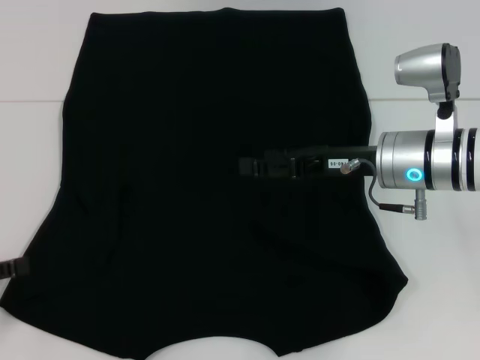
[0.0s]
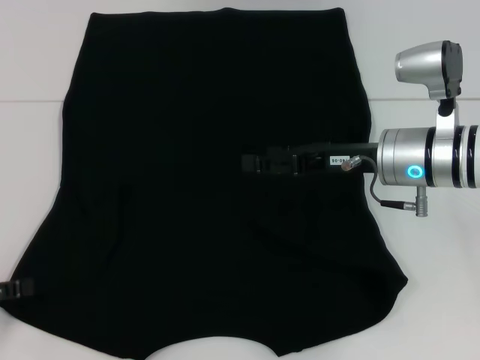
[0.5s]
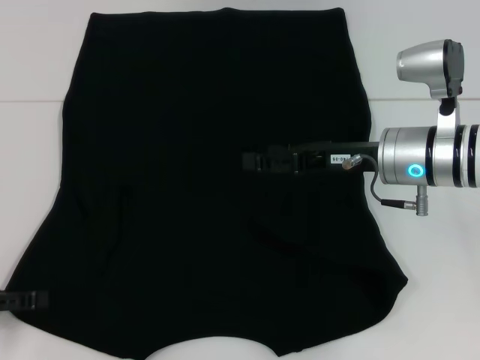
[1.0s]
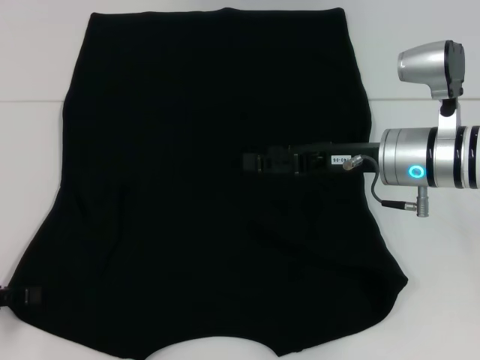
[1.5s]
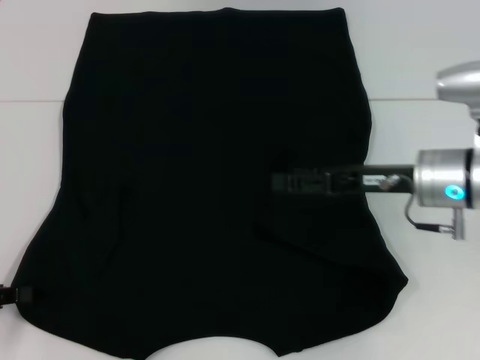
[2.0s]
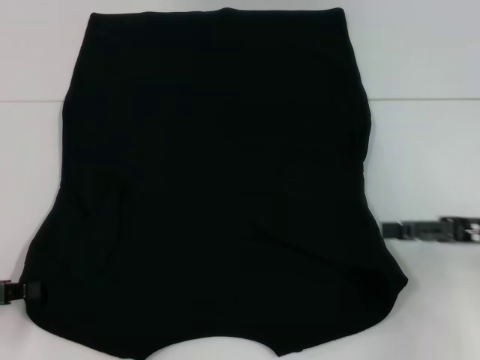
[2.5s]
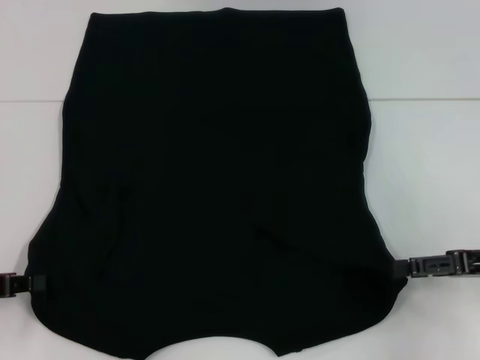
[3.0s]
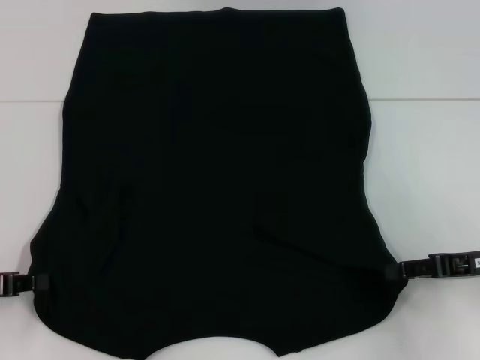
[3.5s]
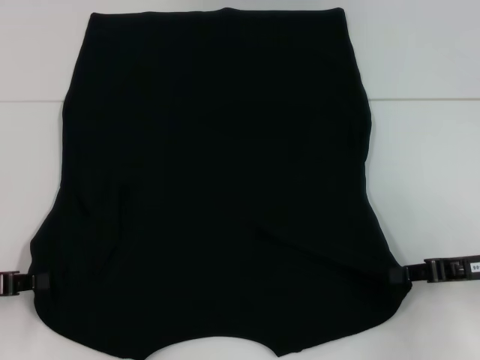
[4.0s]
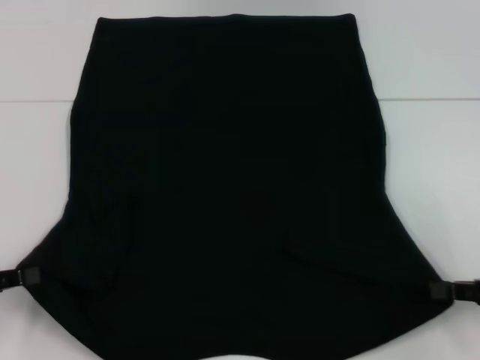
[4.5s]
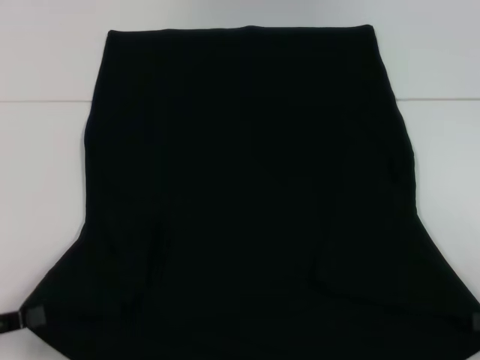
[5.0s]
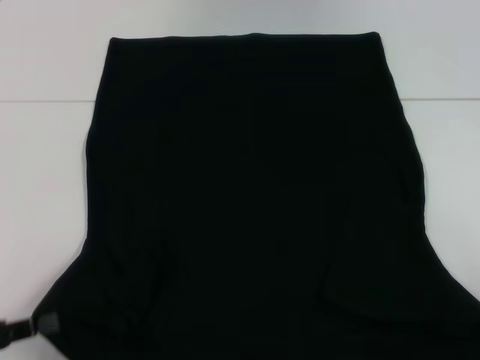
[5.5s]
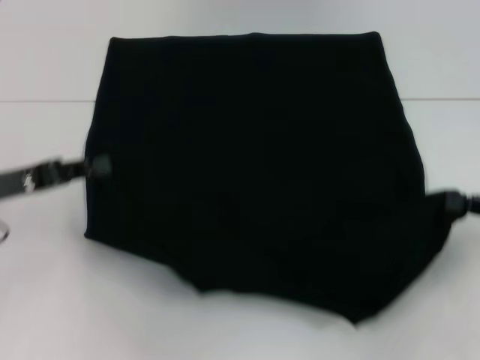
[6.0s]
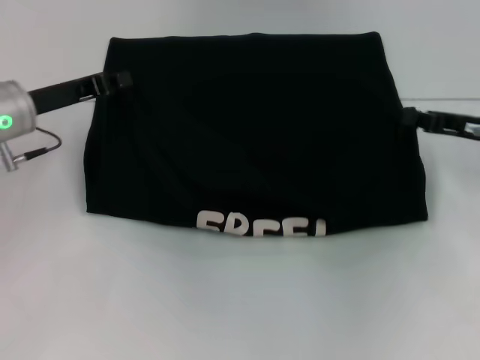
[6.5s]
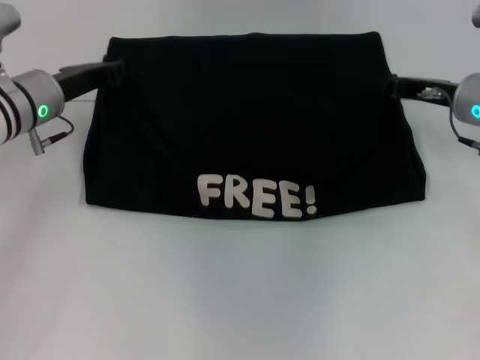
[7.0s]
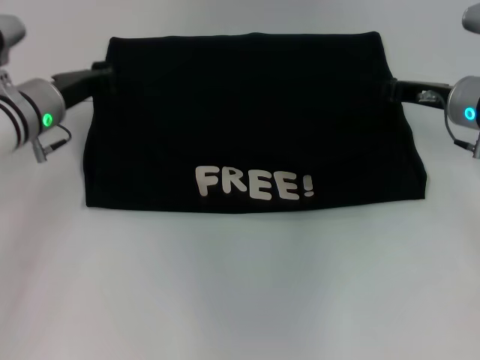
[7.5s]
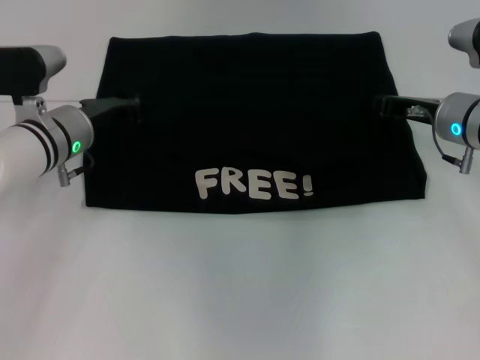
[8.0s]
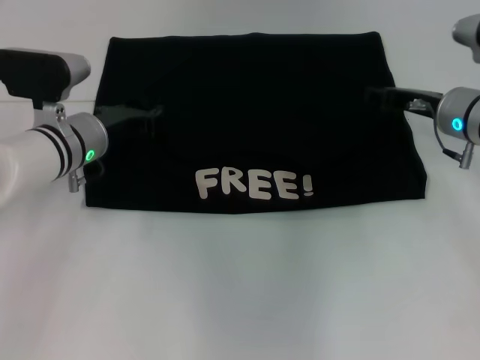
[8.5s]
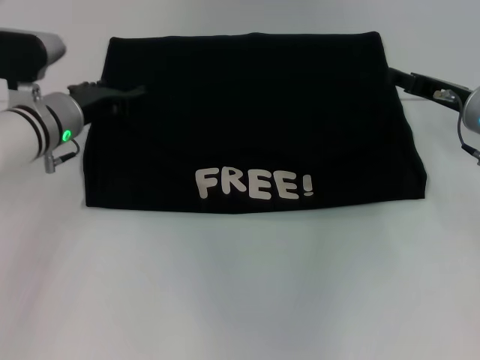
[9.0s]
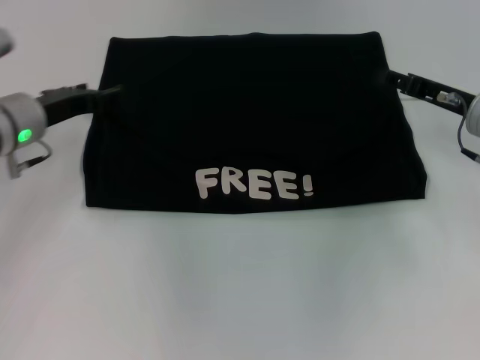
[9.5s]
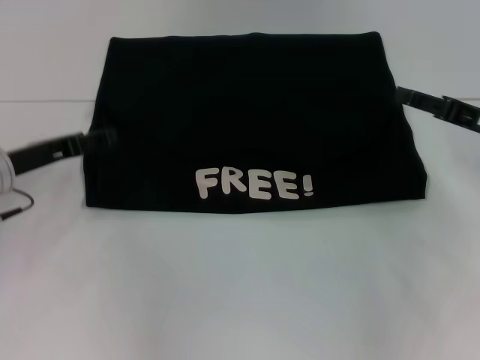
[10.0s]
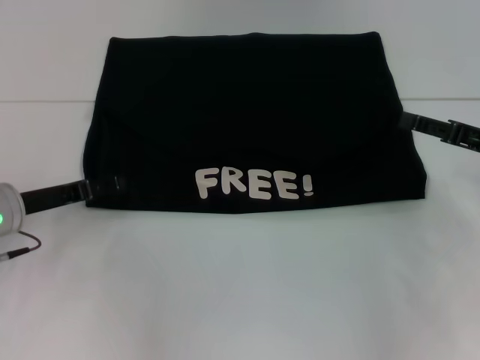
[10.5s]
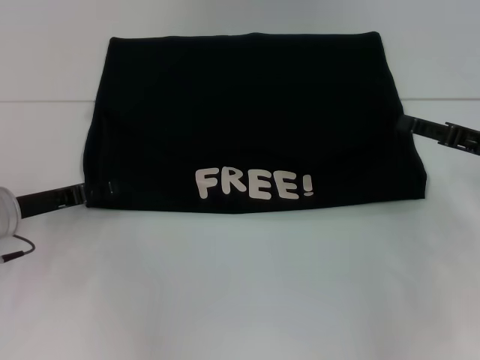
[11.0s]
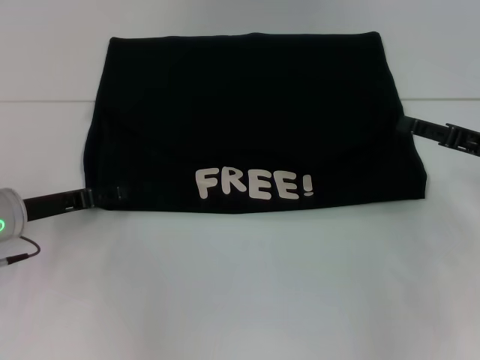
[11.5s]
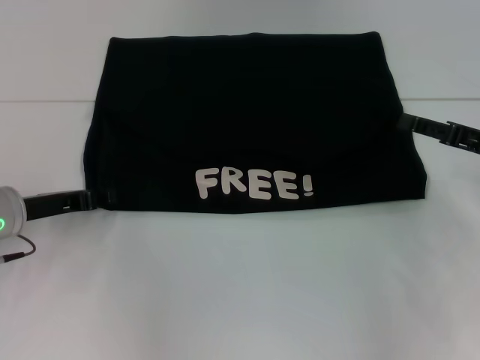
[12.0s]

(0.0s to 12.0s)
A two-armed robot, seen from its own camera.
Step, 0.0s - 2.0s: Grab the bottom left corner with your left hand.
Step, 2.5s - 4.0s: Grab the bottom right corner with your right hand.
Step, 4.5s - 8.5s: Fold the clothes with your left hand.
Step, 4.5s - 8.5s: Fold the clothes with your right hand.
2.0s - 4.0s: The right gripper travels to the right and backward by approximately 10 cm, and closes.
4.0s - 6.0s: The left gripper moves forward, roughly 5 cm; the right gripper moves to the right, roughly 5 cm, and moves roughly 10 cm backward and comes back.
6.0s - 8.0s: The left gripper goes roughly 15 cm forward and to the right. The right gripper heads forward and to the left, covering approximately 20 cm.
8.0s - 10.0s: The left gripper is displaced to the left and backward by roughly 10 cm, and opens its fingers. Meanwhile the right gripper heads to the right and backward, covering roughly 10 cm, and opens up.
10.0s - 12.0s: The grippers move only a little.

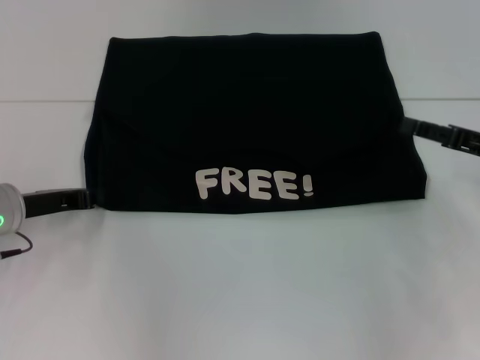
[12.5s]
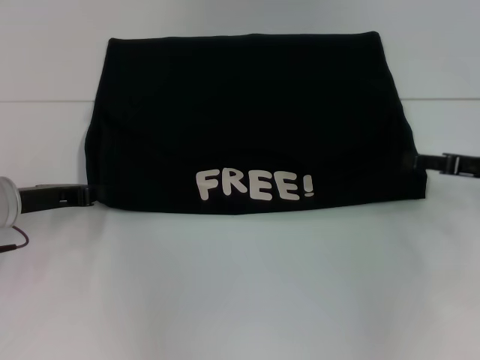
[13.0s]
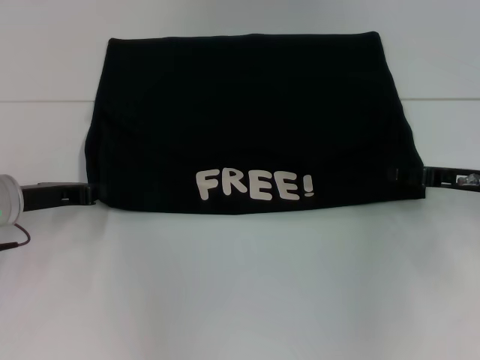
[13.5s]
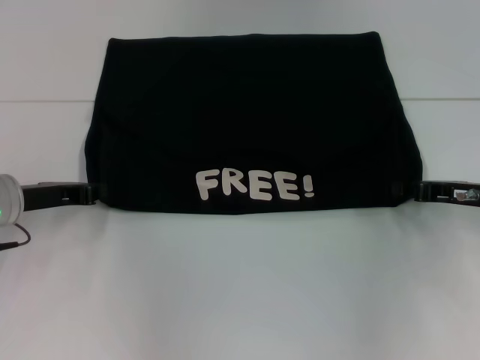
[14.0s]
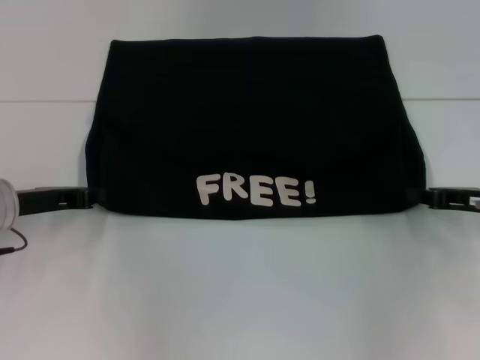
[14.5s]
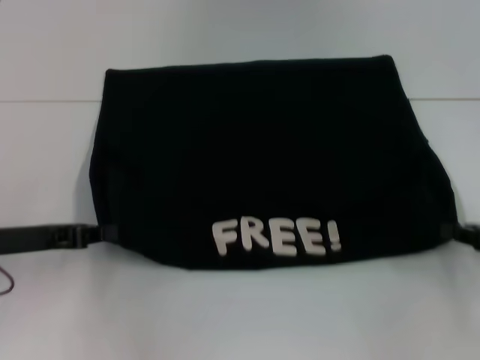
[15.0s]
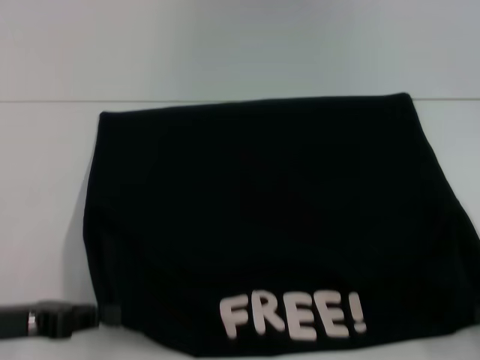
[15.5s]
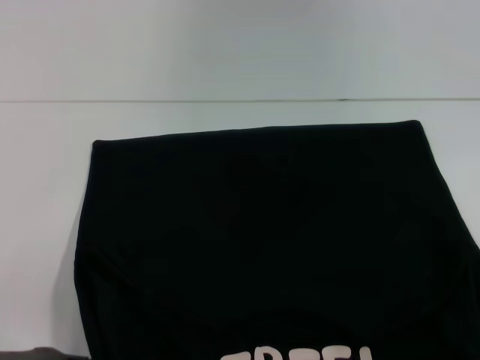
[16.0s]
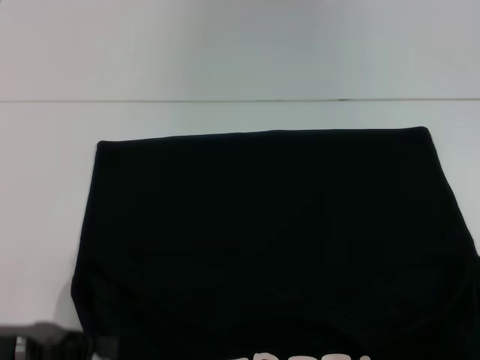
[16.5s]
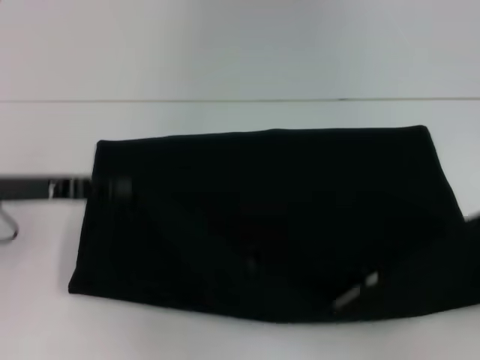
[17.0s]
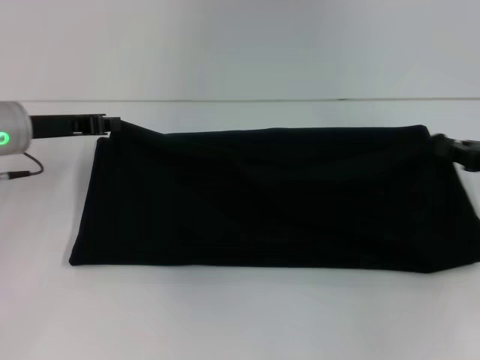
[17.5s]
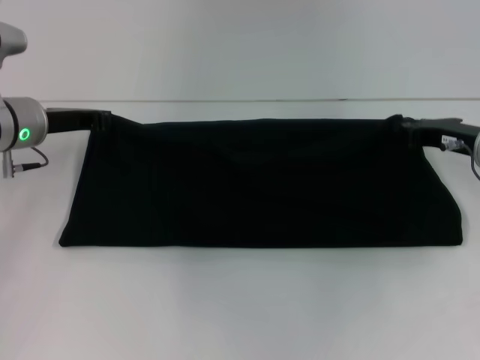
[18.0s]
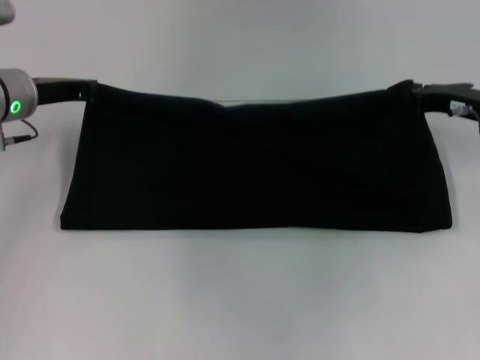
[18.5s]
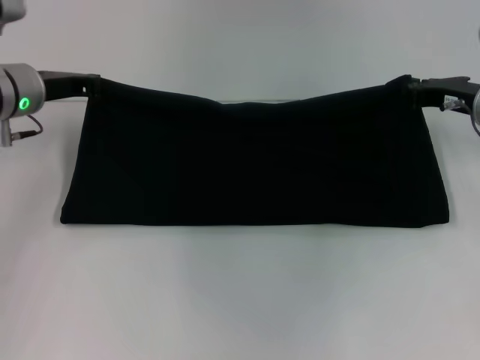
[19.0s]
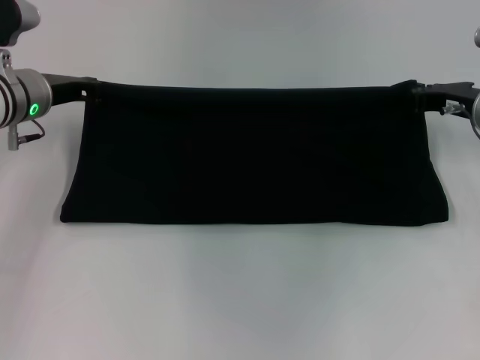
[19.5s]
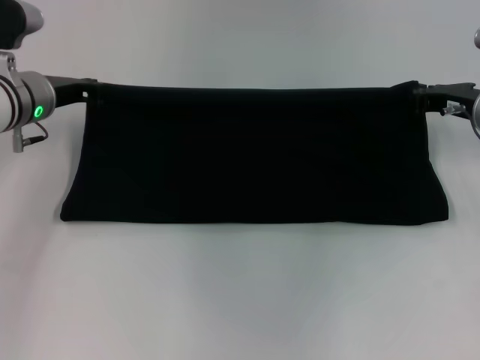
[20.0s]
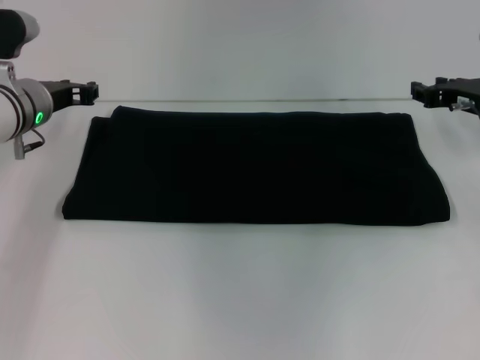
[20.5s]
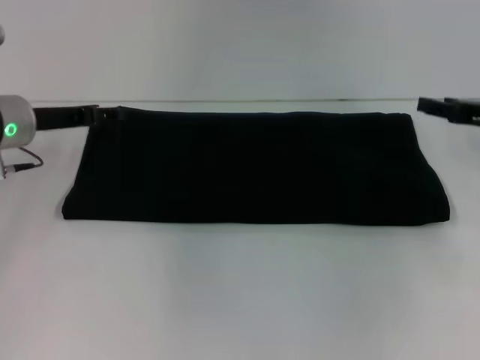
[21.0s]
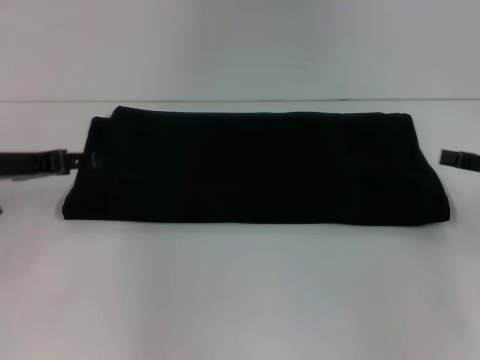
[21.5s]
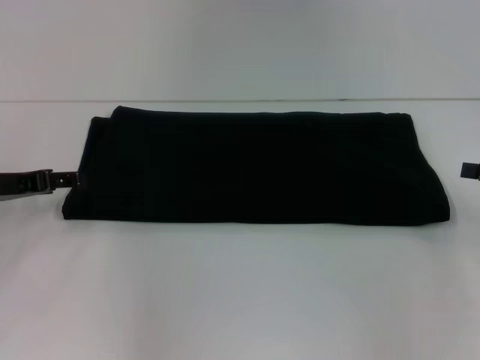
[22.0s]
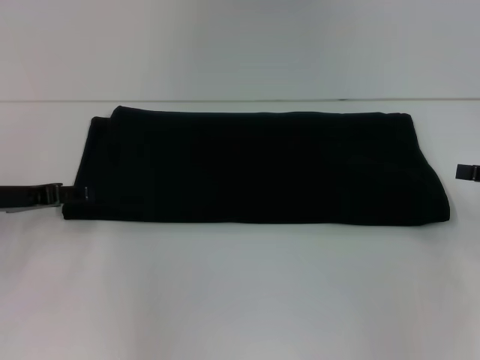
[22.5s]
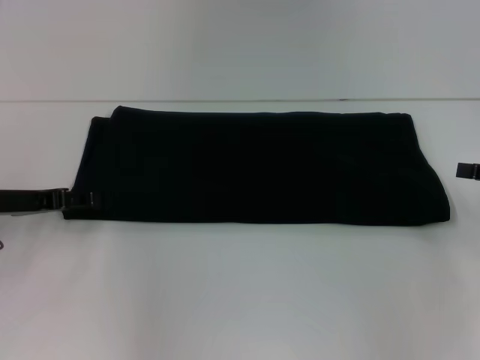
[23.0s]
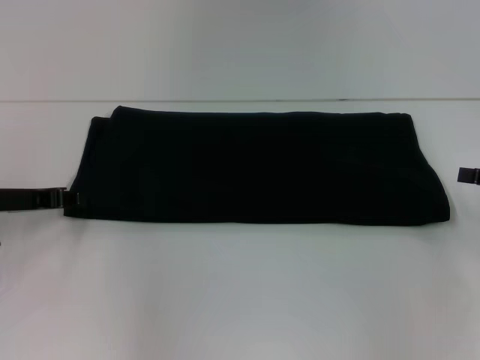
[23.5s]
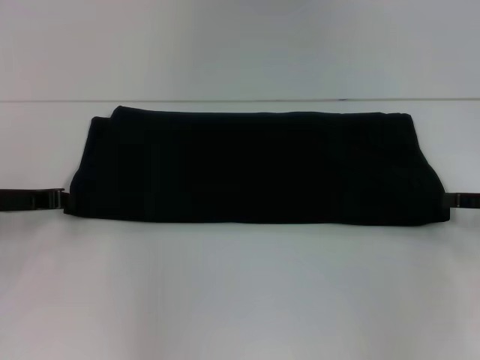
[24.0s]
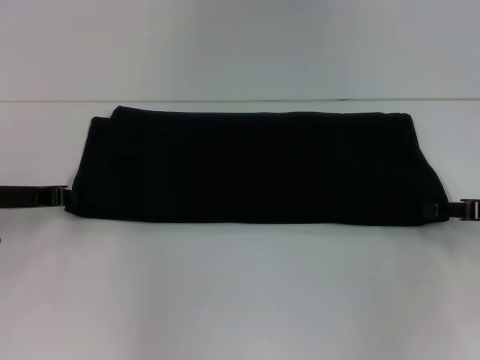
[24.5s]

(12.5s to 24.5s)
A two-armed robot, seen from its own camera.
Step, 12.5s - 16.0s: Pull the clothes with your left hand.
Step, 12.5s - 16.0s: Pull the clothes with your right hand.
Step, 16.5s - 20.5s: Fold the clothes with your right hand.
12.5s - 14.5s: The right gripper closes.
14.5s - 16.5s: The left gripper goes about 15 cm backward. The right gripper shifts approximately 20 cm backward and to the right.
16.5s - 18.5s: The right gripper goes roughly 30 cm forward and to the left; the left gripper goes about 25 cm forward.
18.5s - 20.5s: The grippers move only a little.
20.5s - 22.5s: The left gripper goes approximately 10 cm backward and to the left, and opens, while the right gripper is displaced backward and to the right by approximately 15 cm.

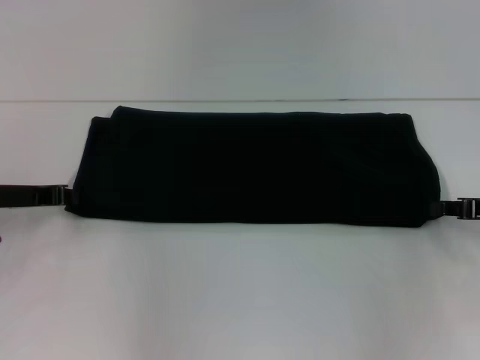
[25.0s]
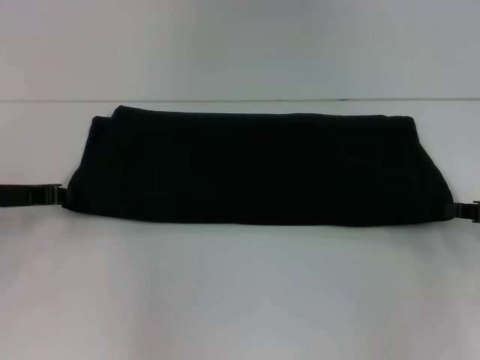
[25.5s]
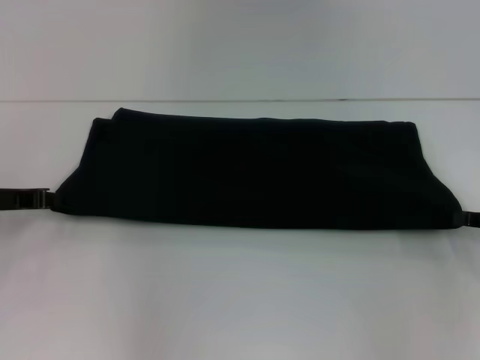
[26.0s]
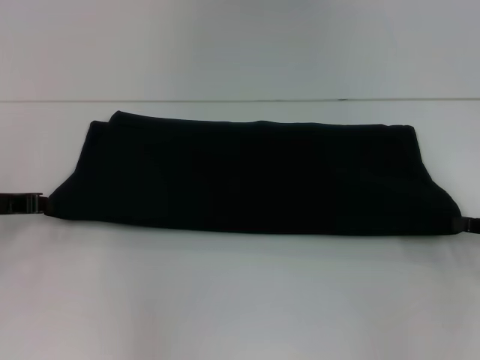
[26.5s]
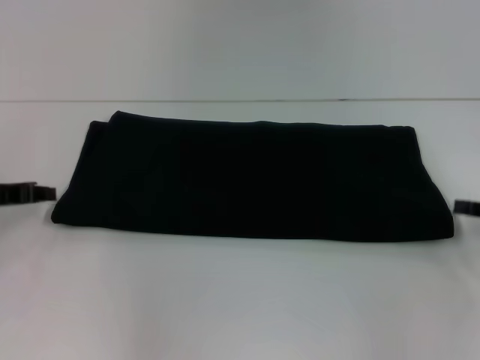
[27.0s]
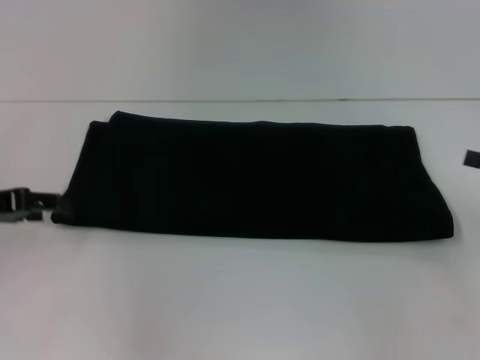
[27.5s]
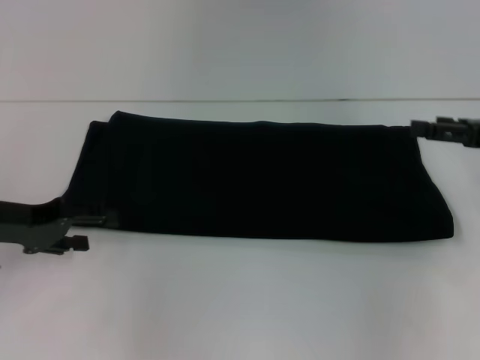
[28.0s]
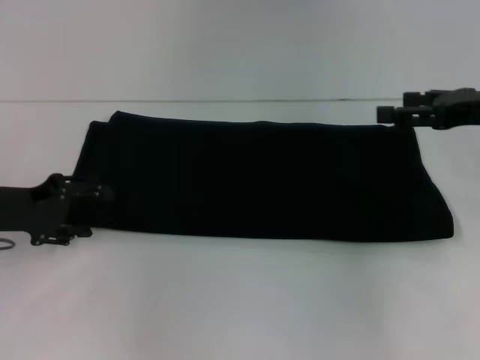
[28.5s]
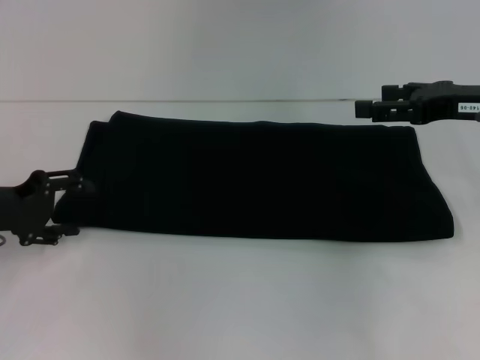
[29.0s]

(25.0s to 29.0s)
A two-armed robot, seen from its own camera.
25.0s - 27.0s: The grippers move only a little.
27.0s - 29.0s: The right gripper travels to the left, upward and forward by about 15 cm, and opens up. The left gripper opens its fingers.
